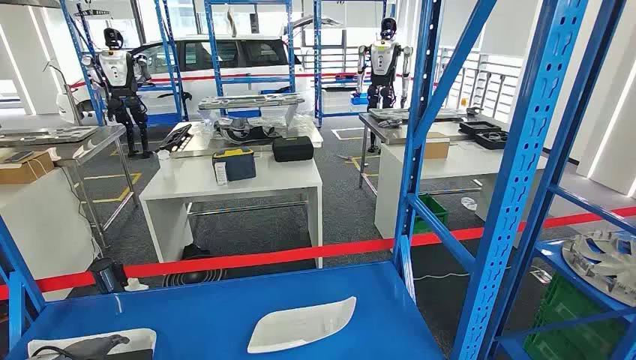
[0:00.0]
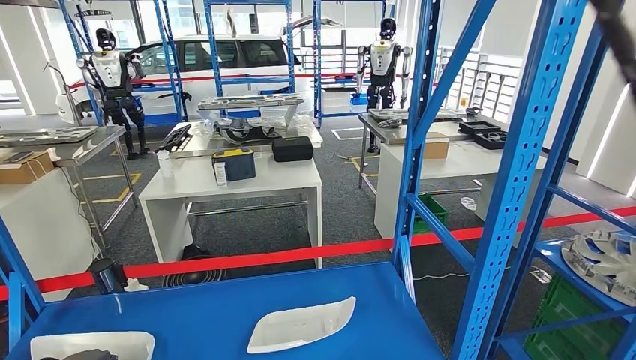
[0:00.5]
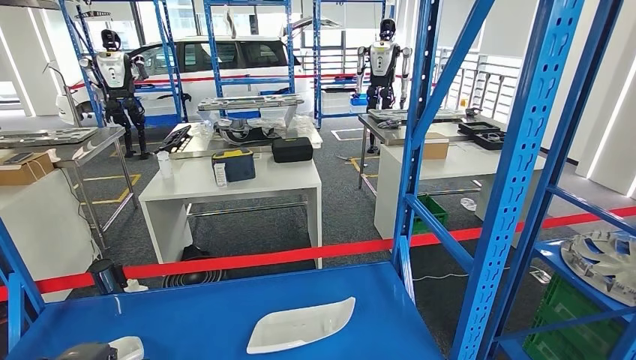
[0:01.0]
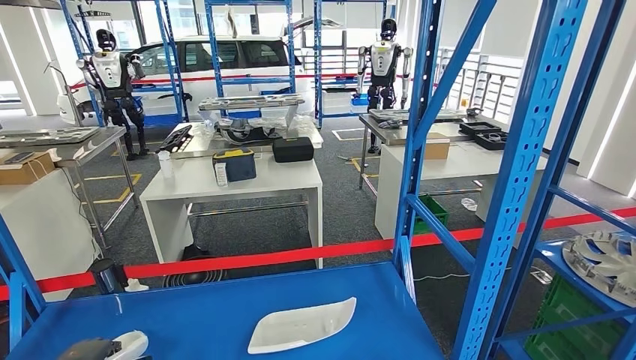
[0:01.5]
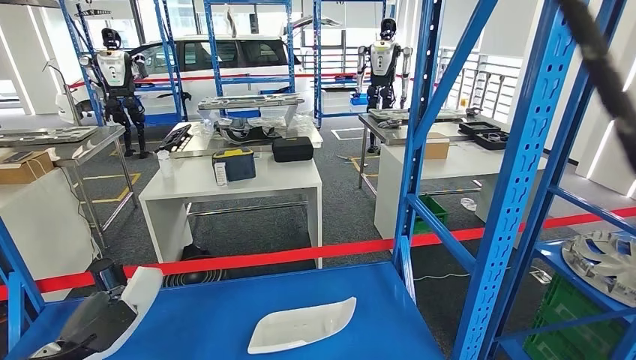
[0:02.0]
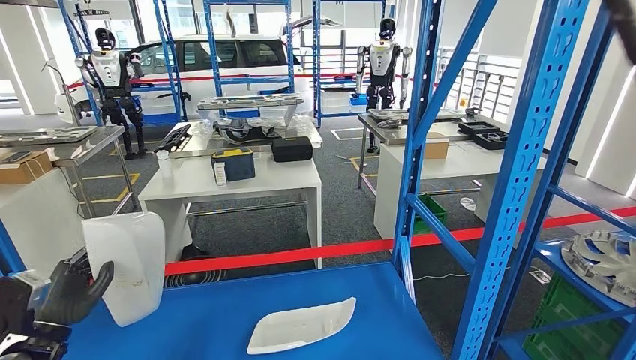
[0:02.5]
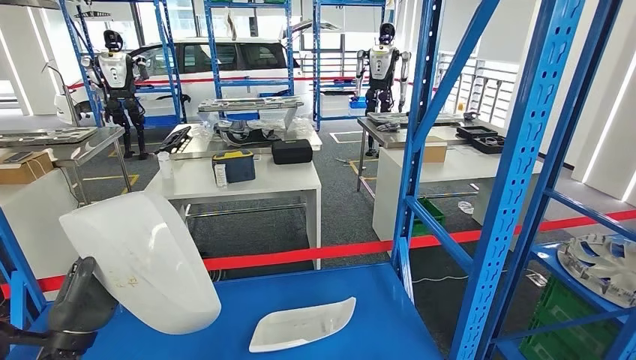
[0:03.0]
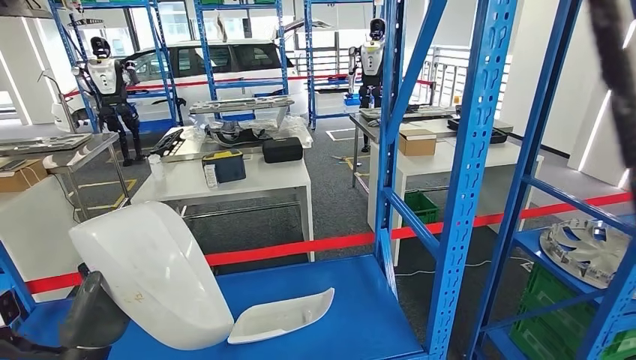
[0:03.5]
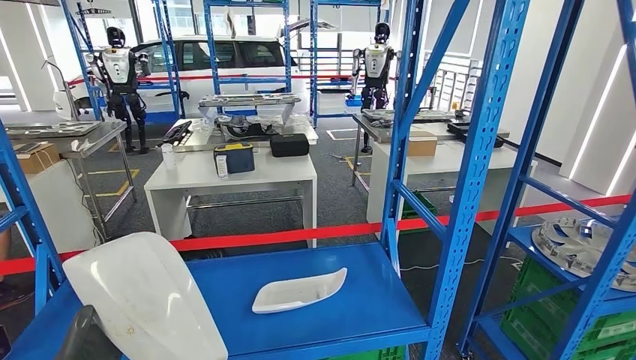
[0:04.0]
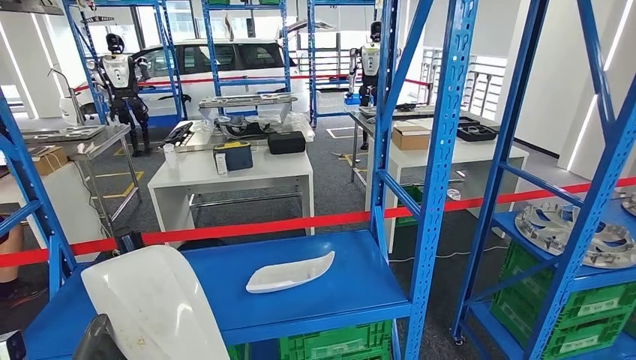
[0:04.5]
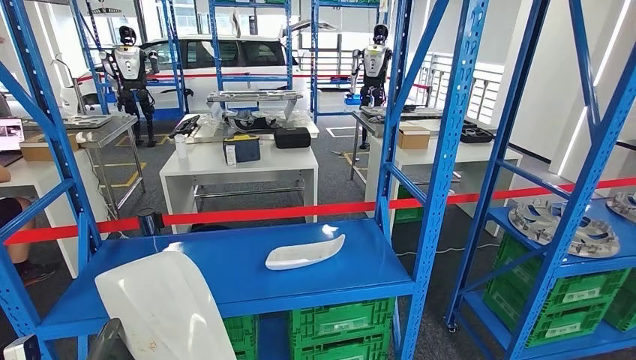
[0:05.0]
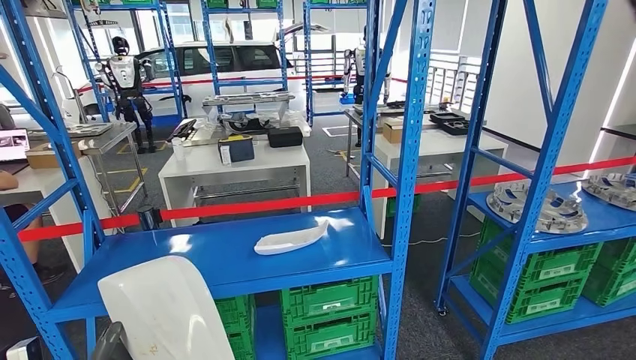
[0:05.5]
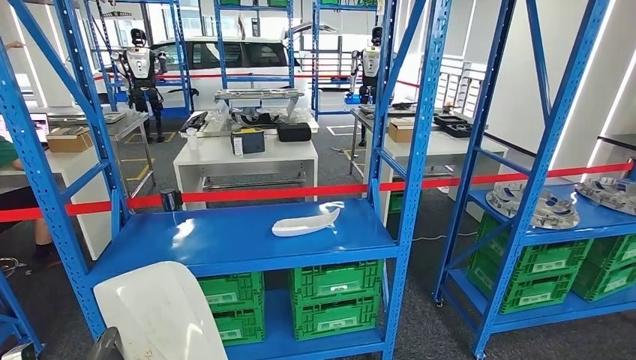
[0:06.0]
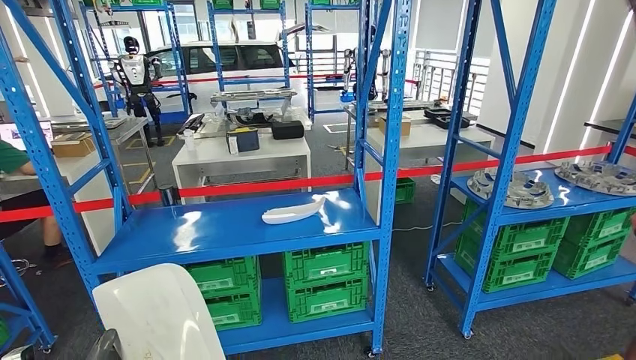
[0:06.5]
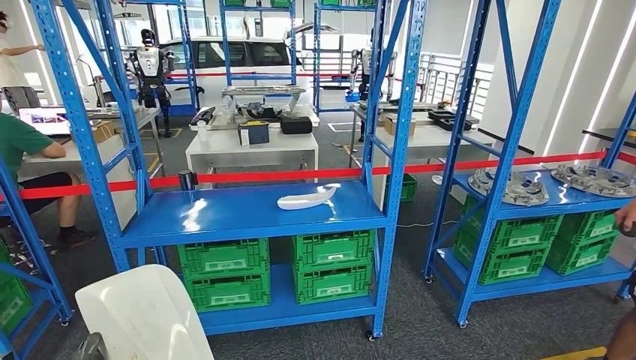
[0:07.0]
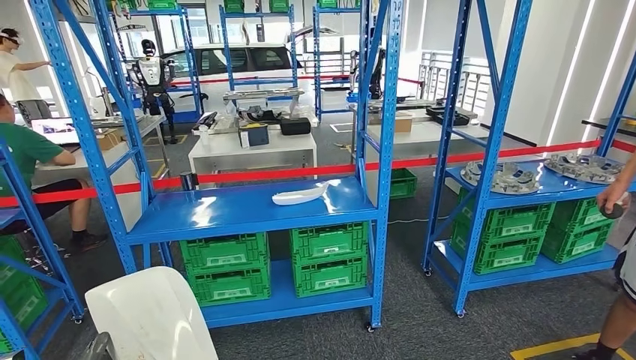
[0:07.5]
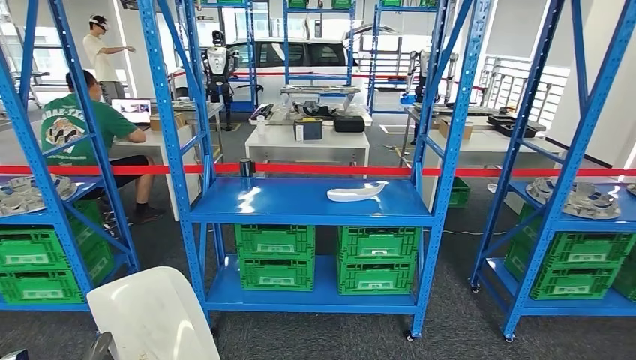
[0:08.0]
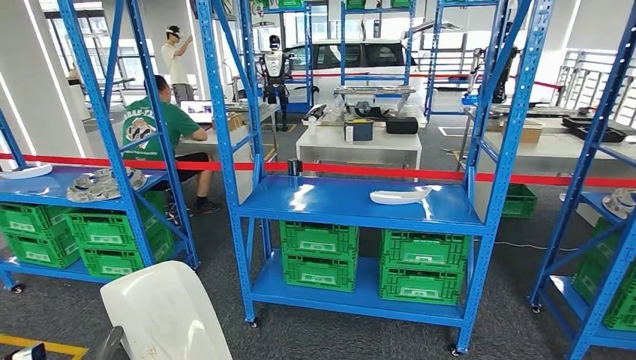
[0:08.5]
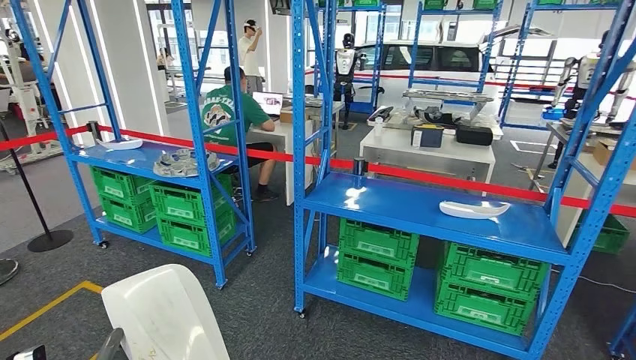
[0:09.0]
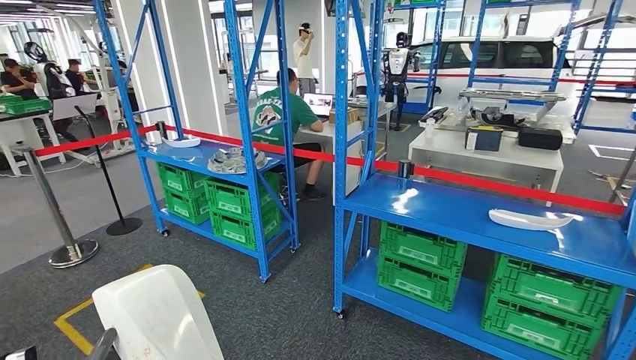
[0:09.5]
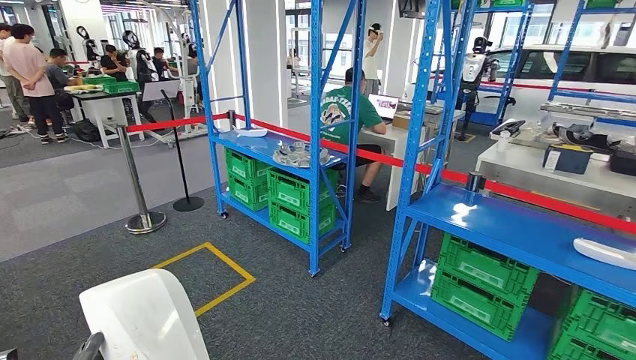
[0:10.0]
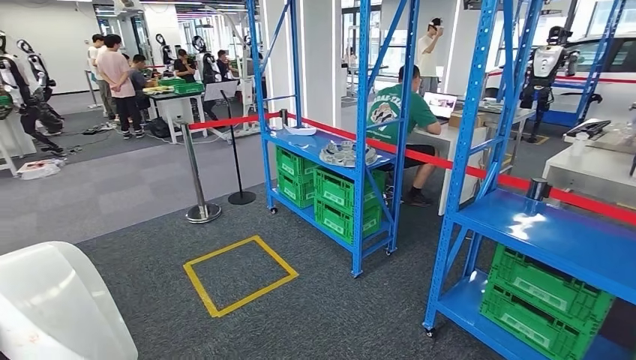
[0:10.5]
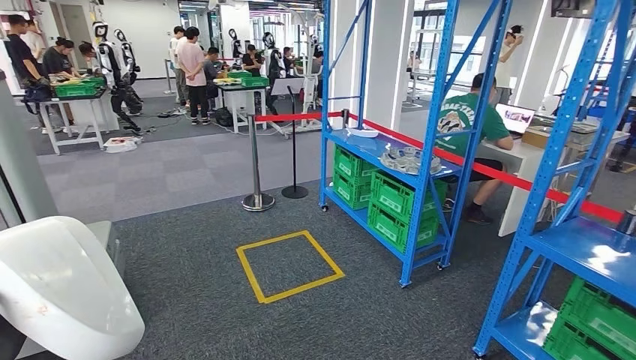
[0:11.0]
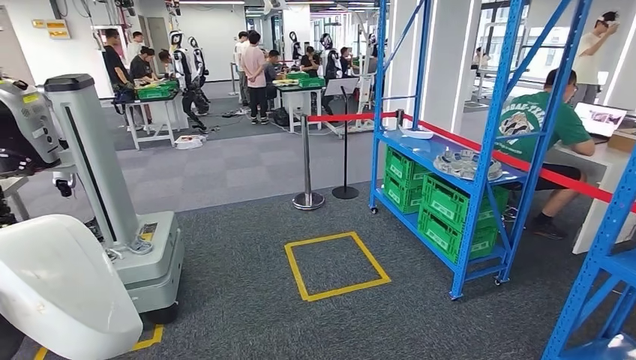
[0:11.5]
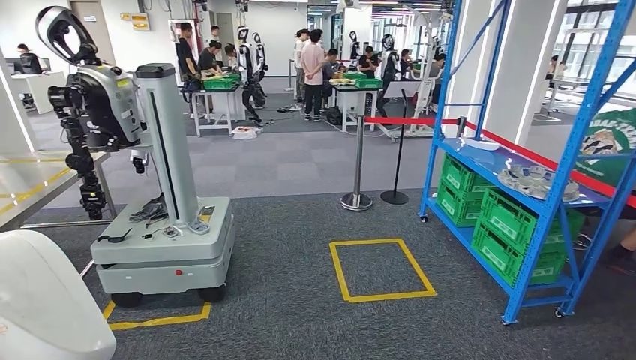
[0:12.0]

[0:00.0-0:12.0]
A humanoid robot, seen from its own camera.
Step, 0:00.0 to 0:05.0: Pick up the small parts from the shelf.

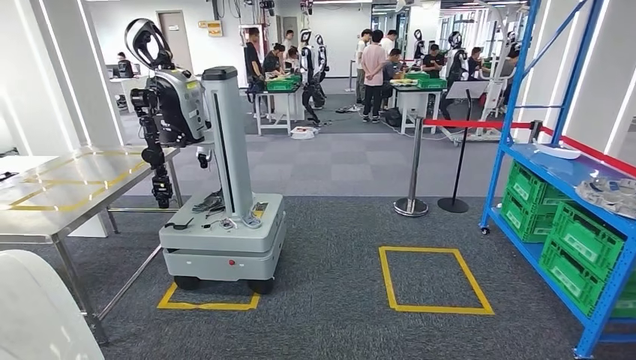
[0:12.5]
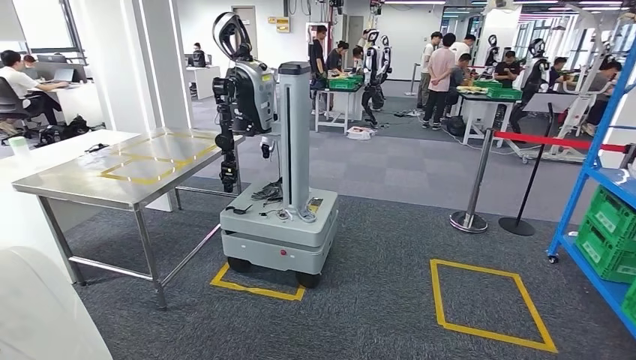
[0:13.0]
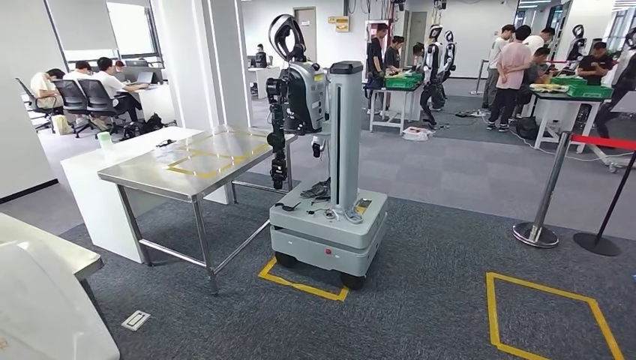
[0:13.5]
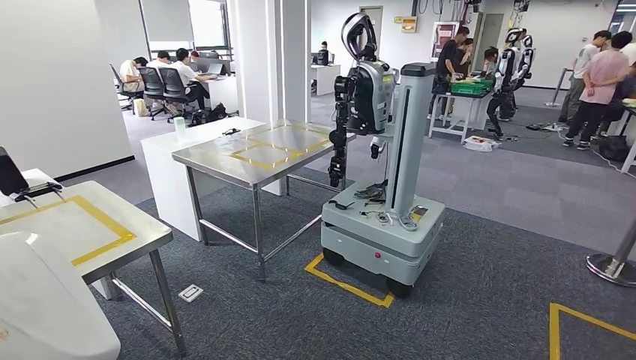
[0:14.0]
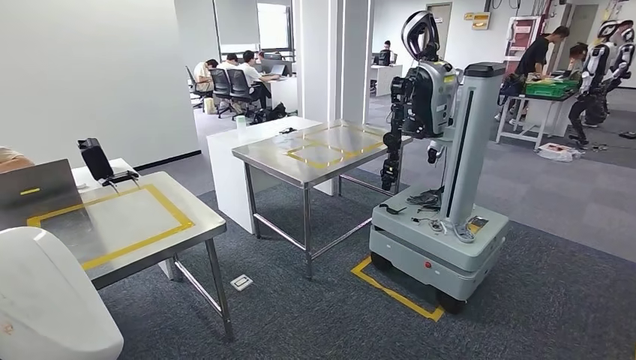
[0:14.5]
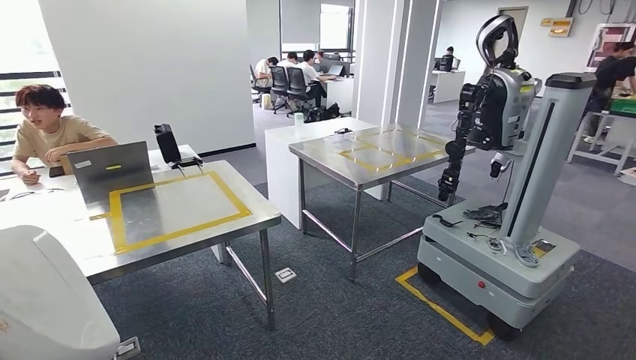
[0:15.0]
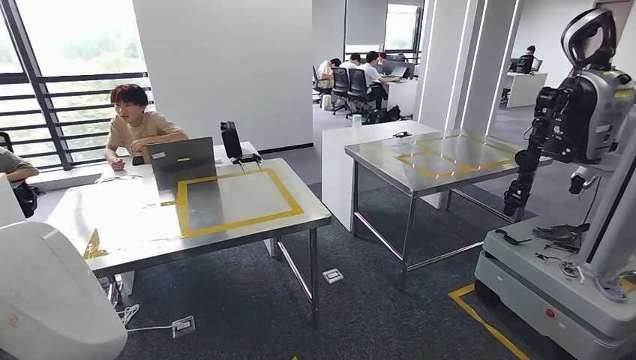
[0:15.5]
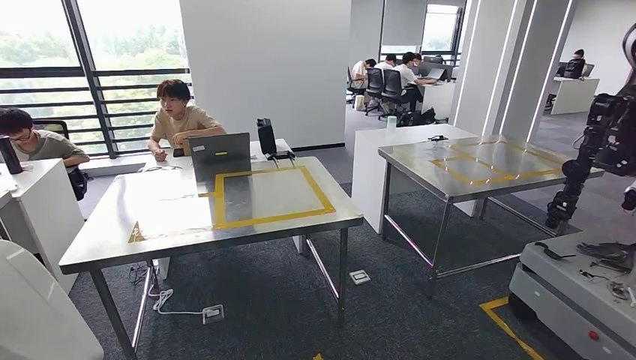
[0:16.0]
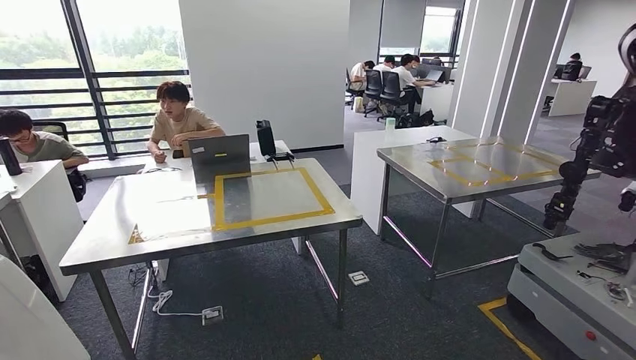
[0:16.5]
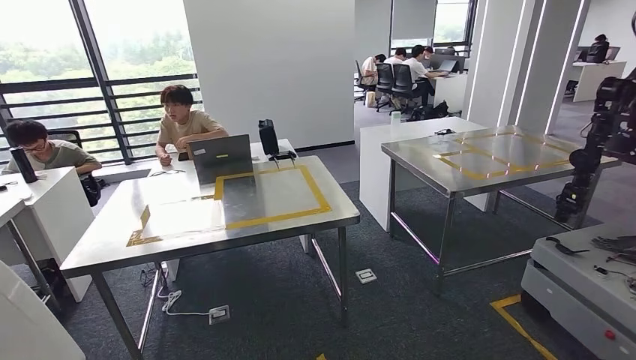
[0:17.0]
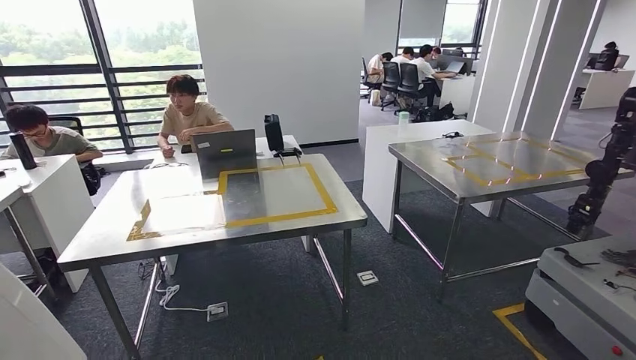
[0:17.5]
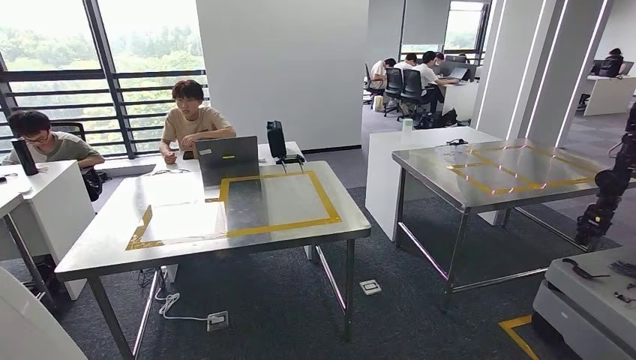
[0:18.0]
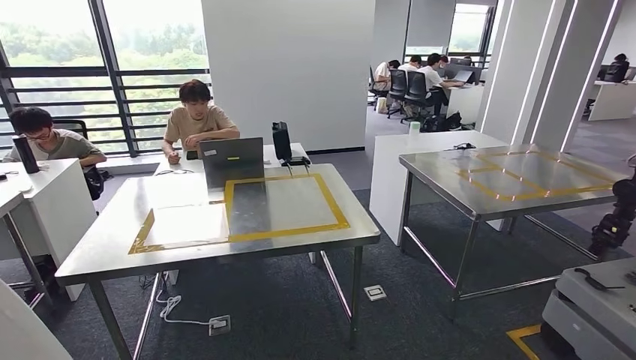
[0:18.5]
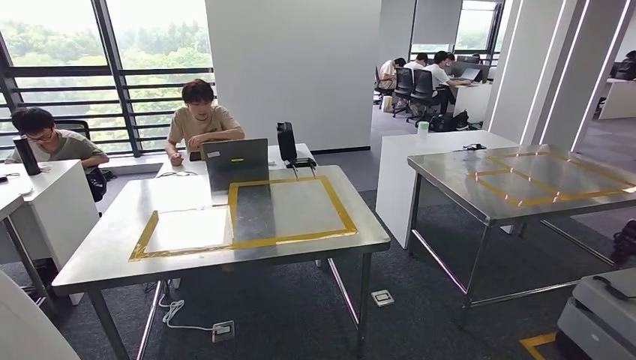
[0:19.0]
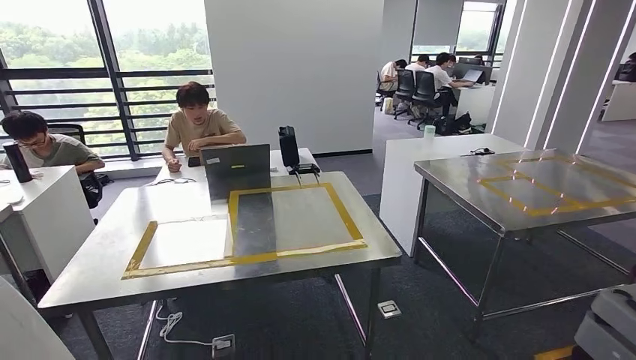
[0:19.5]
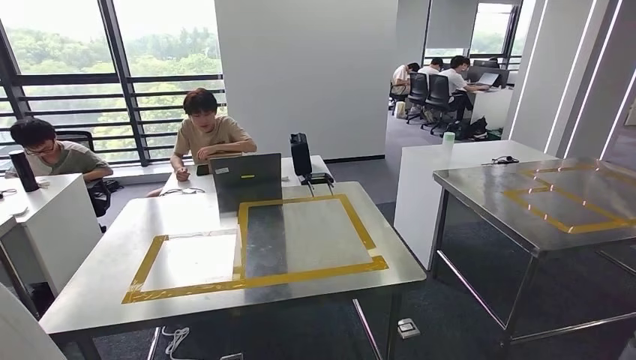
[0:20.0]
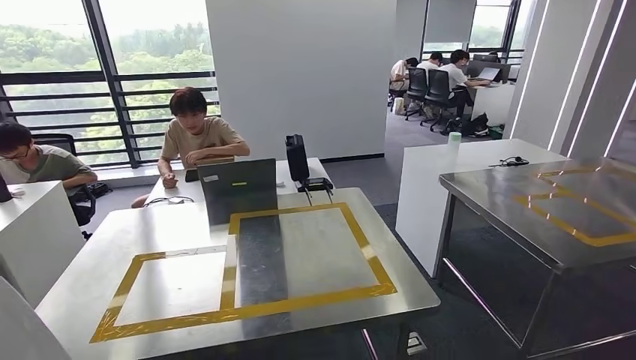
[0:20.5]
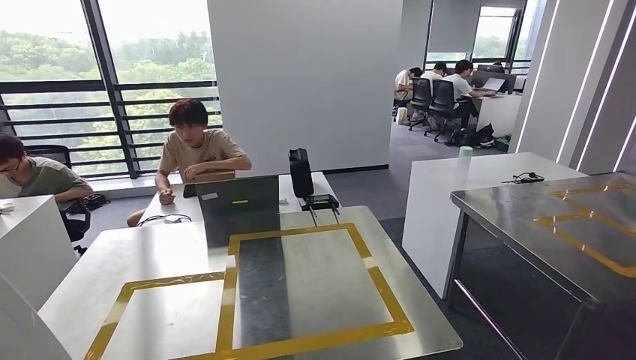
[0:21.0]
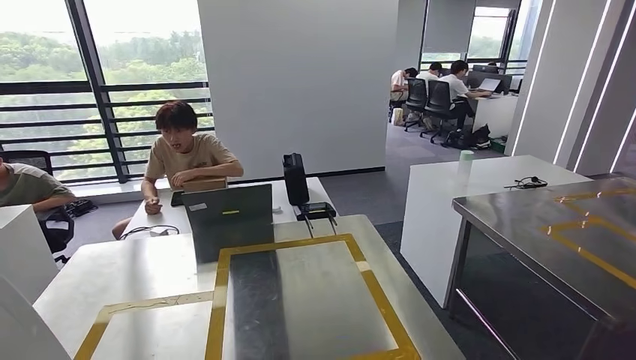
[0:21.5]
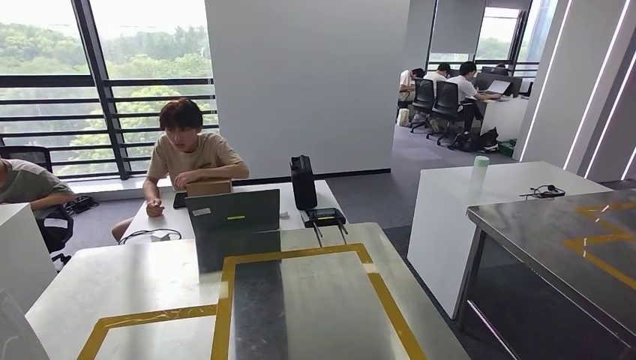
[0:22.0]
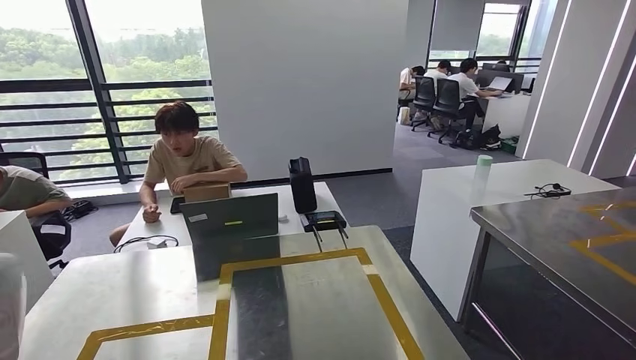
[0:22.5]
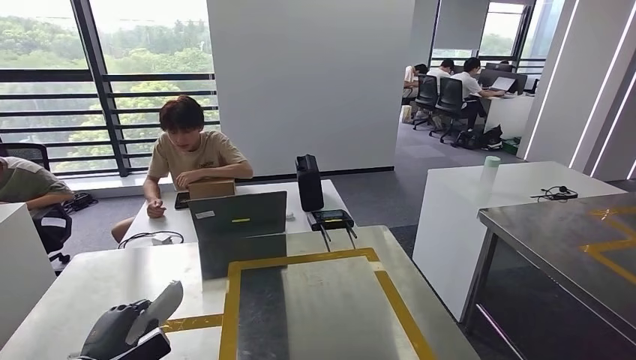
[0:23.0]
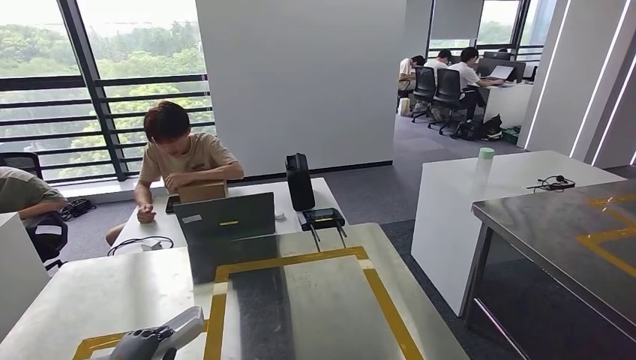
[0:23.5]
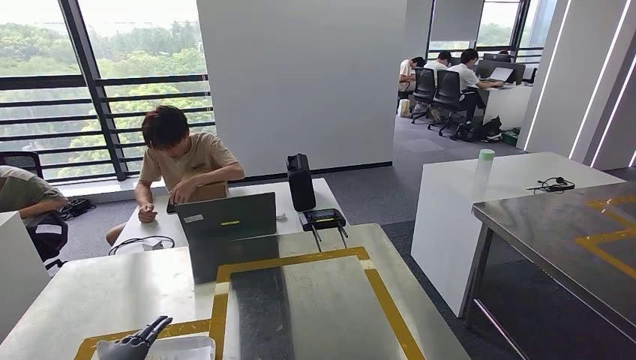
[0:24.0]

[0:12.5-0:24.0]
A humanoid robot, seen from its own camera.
Step, 0:12.5 to 0:16.5: Move the small parts to the workbench.
